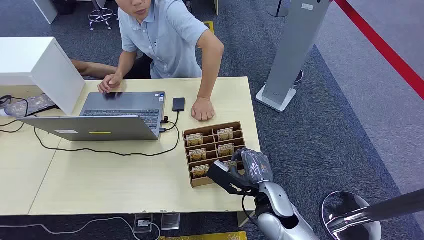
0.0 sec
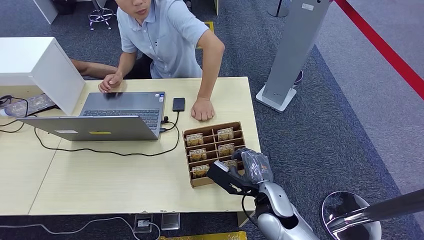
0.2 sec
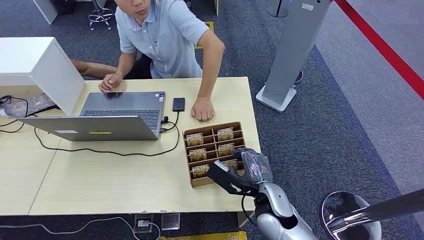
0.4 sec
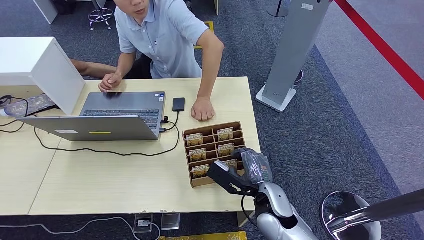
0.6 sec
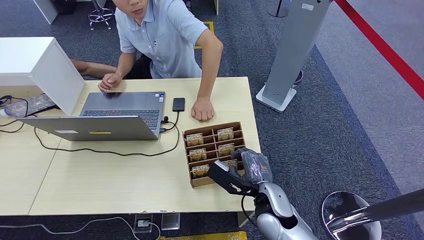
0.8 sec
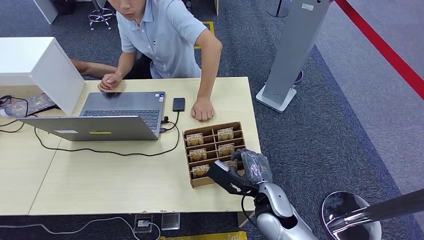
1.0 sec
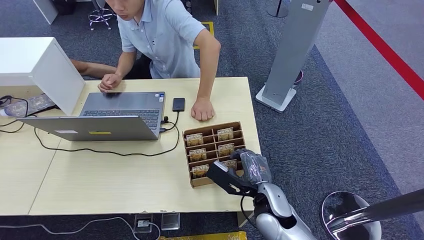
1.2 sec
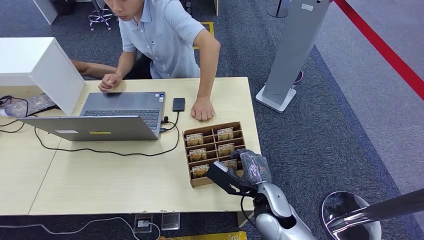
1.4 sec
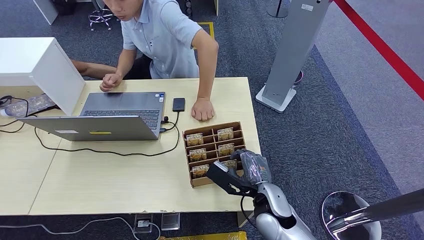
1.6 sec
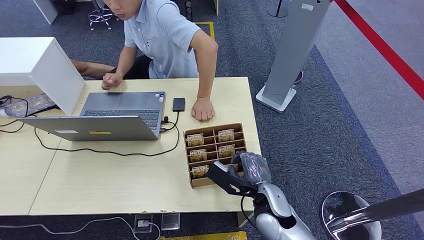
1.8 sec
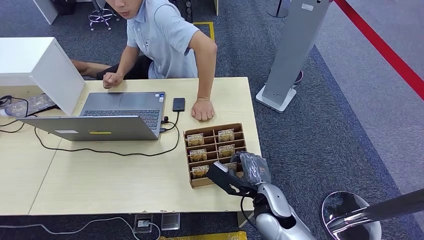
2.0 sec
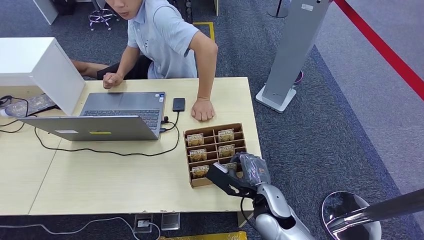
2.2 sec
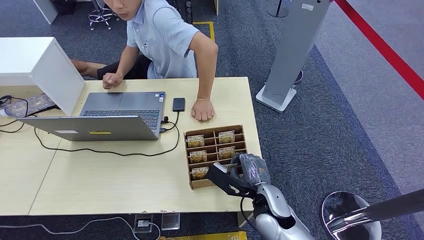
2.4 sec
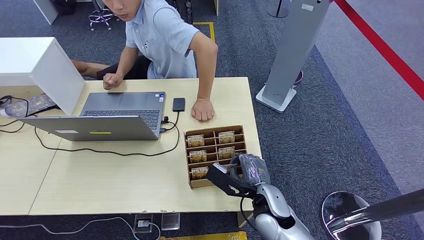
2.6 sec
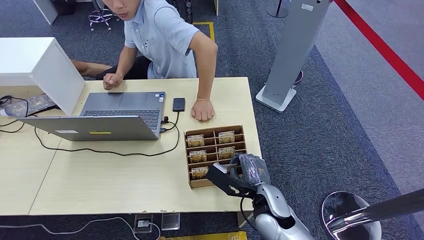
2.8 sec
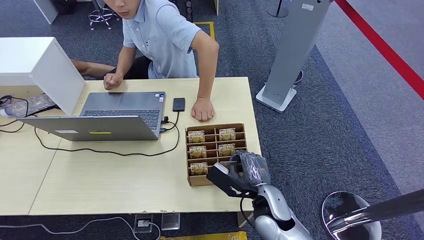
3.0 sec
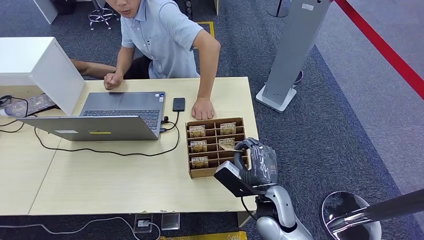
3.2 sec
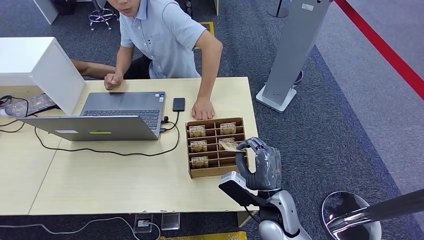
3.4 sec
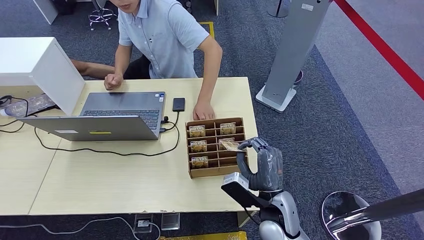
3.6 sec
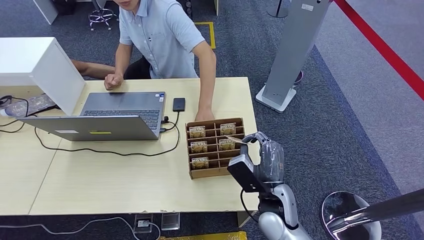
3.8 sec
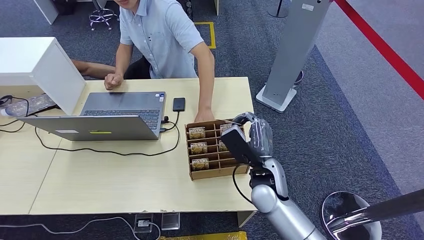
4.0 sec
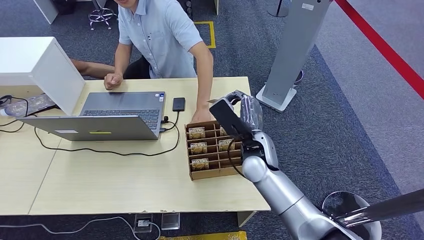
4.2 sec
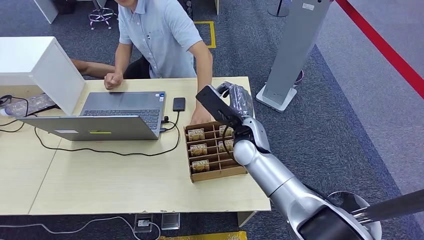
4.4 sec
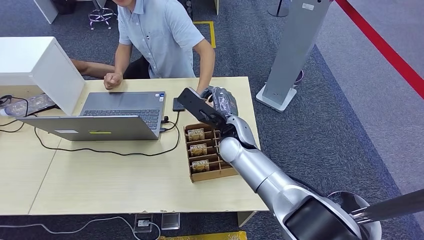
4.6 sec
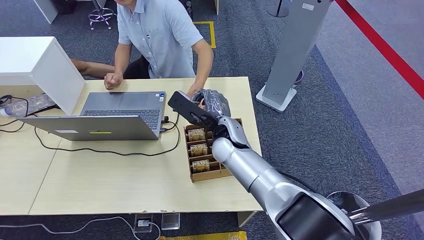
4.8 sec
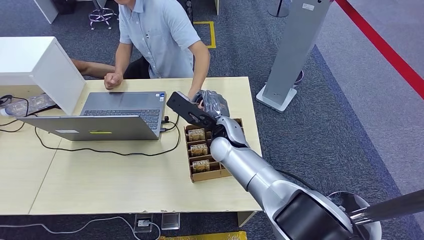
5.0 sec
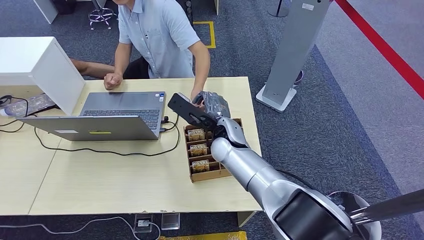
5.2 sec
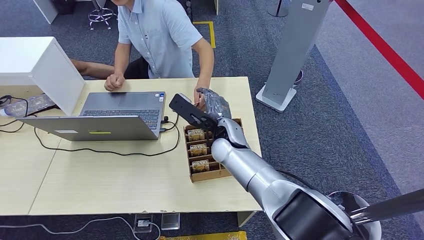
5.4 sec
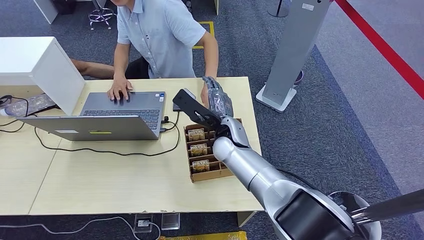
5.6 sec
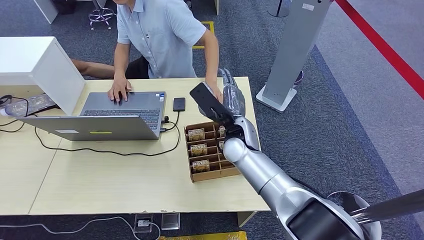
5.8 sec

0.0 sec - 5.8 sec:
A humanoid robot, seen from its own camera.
Step, 0.0 sec - 3.2 sec: Pick up the room card from the card holder.
Step, 4.2 sec - 5.8 sec: Hand the room card to the target.
1.4 sec - 2.8 sec: Neither hand changes place.
2.8 sec - 4.4 sec: The right hand travels forward, upward and to the left by approximately 20 cm.
4.4 sec - 5.8 sec: The right hand heads to the right and backward, covering roughly 10 cm.

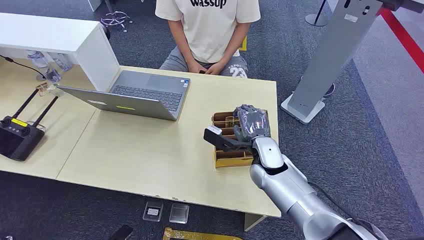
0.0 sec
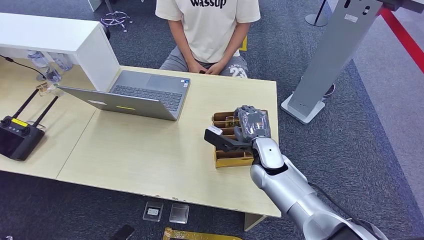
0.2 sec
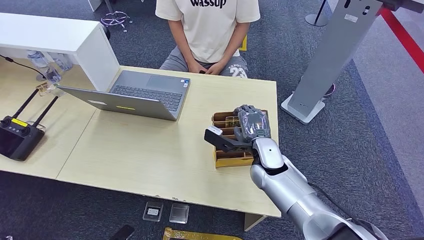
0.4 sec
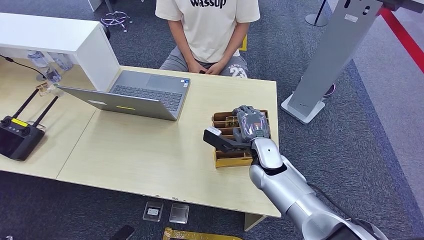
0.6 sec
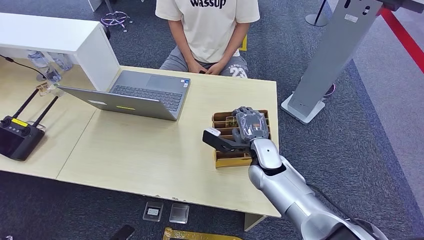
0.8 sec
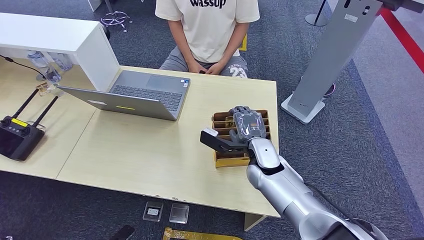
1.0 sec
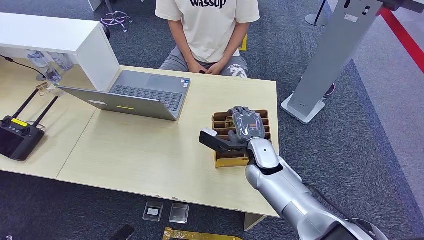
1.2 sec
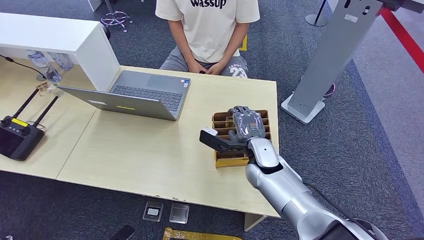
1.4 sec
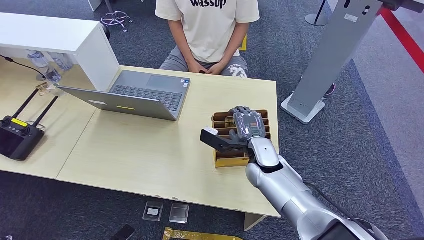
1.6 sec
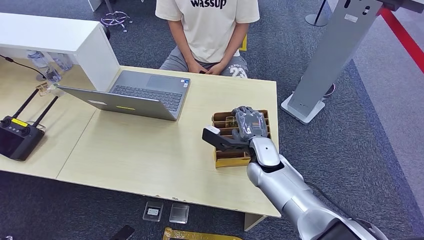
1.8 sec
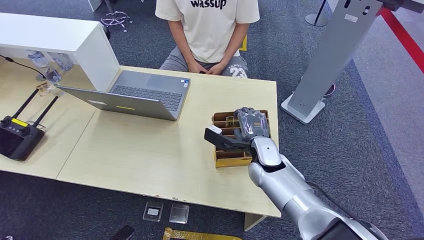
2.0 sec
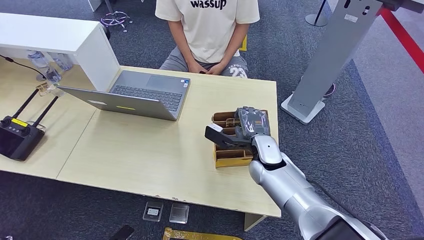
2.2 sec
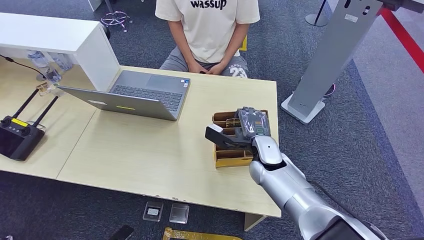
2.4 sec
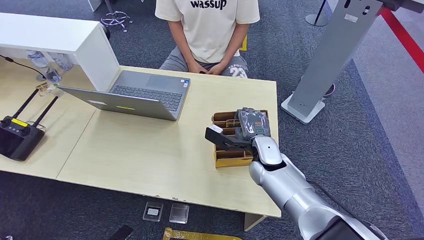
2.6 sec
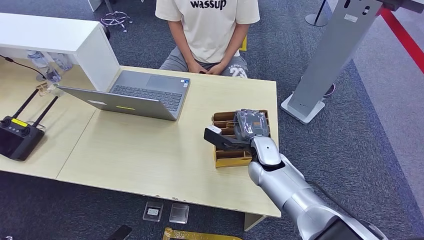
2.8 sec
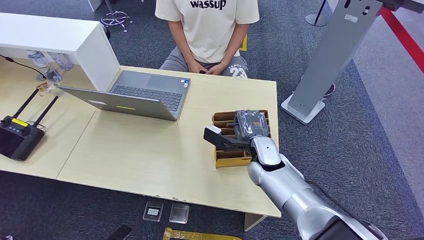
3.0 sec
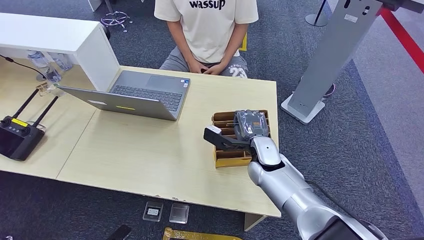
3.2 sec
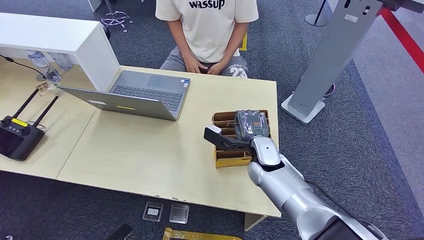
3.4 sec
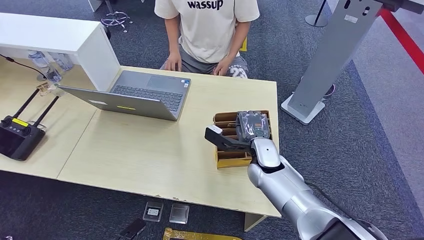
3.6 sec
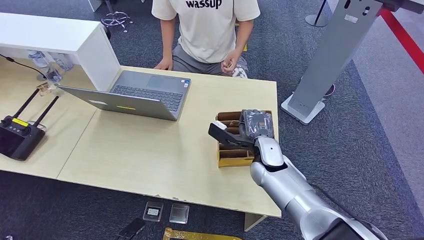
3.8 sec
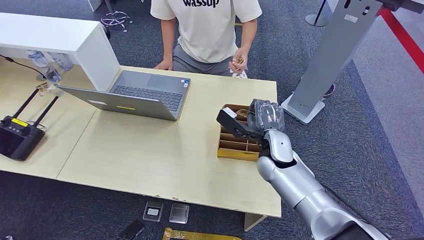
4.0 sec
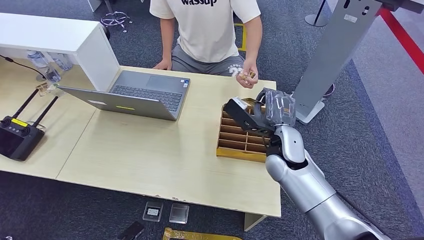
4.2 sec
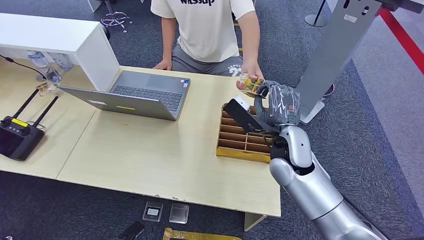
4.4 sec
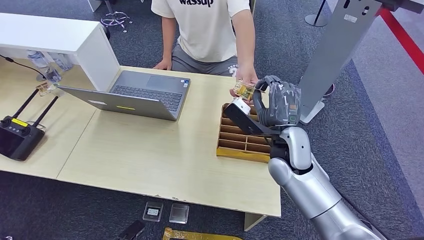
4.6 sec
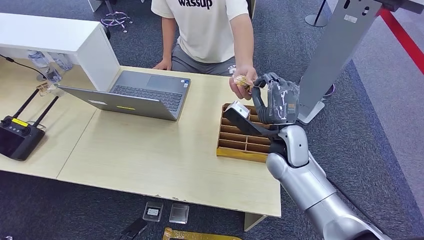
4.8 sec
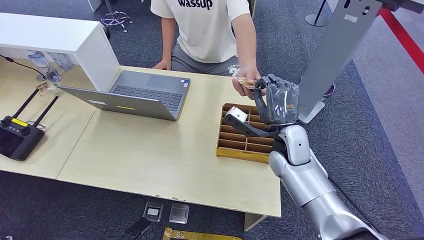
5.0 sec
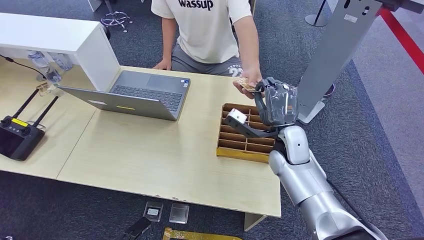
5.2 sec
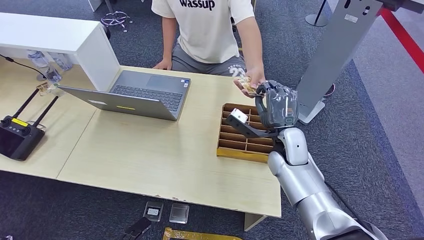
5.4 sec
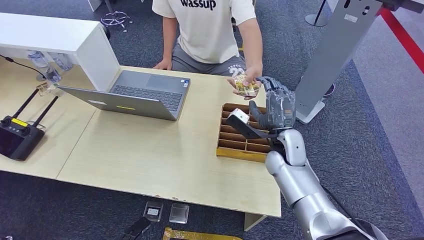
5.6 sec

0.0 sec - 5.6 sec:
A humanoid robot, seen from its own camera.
Step, 0.0 sec - 4.0 sec: Pick up the room card from the card holder.
Step, 4.6 sec - 5.6 sec: Hand the room card to the target.
1.4 sec - 2.8 sec: Neither hand changes place.
2.8 sec - 4.2 sec: The right hand goes roughly 10 cm upward and to the right.
4.2 sec - 5.6 sec: The right hand moves downward and forward, approximately 10 cm.
